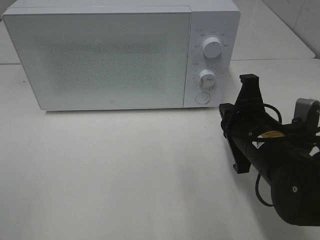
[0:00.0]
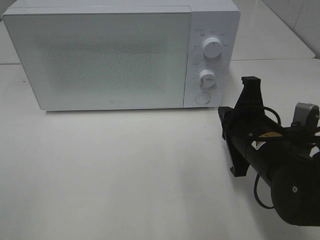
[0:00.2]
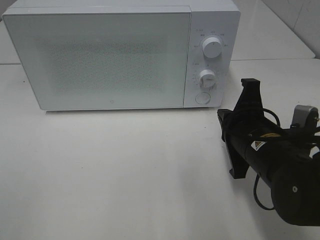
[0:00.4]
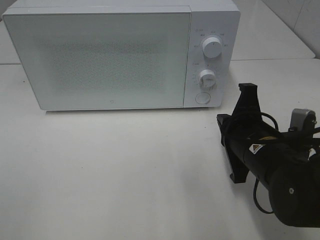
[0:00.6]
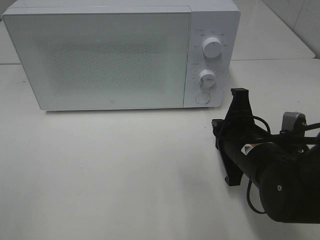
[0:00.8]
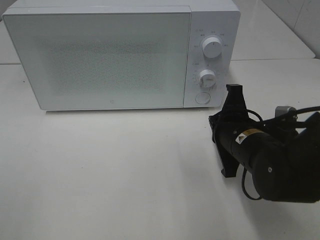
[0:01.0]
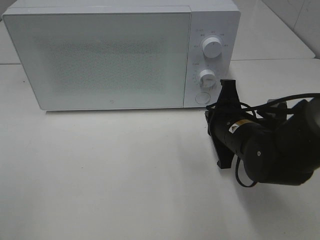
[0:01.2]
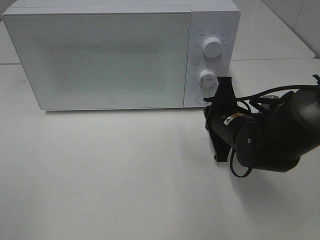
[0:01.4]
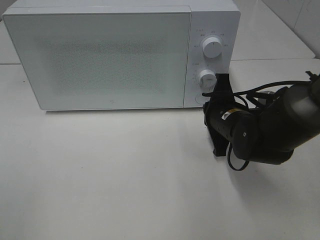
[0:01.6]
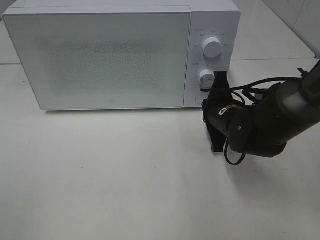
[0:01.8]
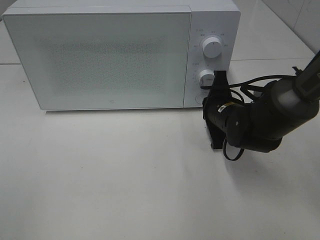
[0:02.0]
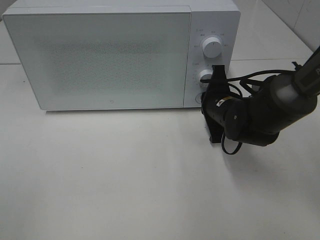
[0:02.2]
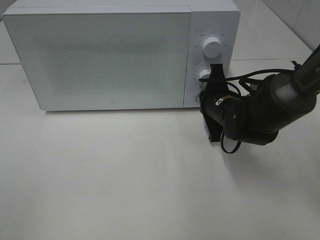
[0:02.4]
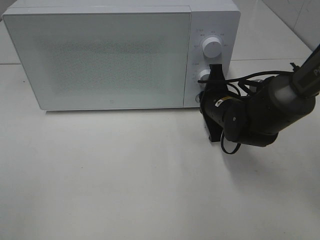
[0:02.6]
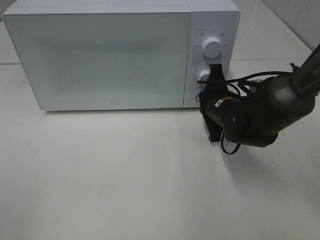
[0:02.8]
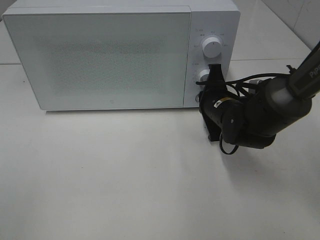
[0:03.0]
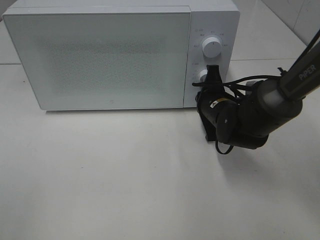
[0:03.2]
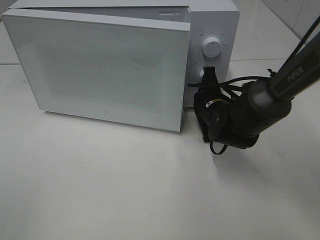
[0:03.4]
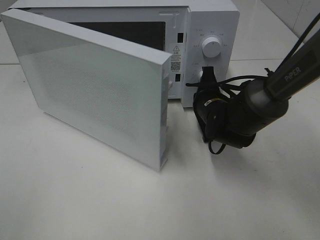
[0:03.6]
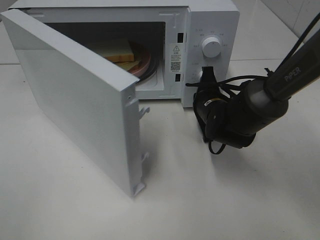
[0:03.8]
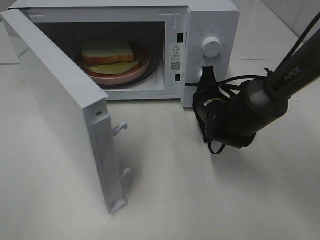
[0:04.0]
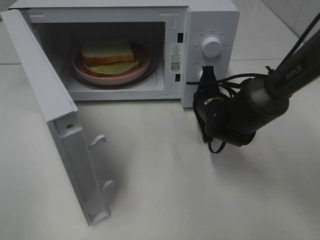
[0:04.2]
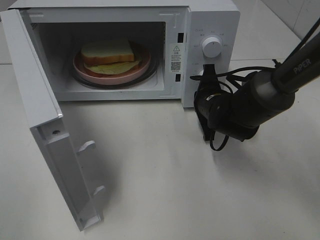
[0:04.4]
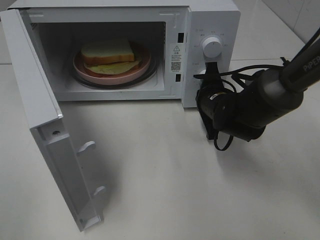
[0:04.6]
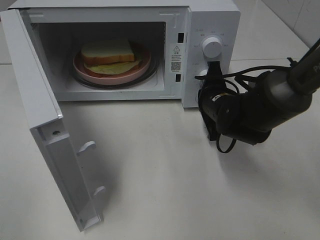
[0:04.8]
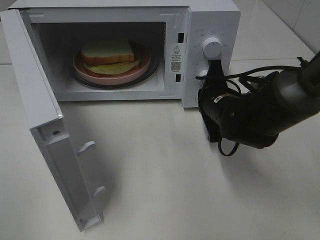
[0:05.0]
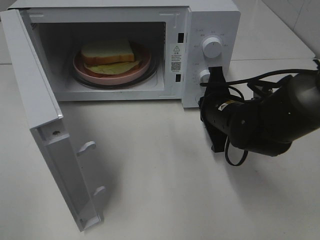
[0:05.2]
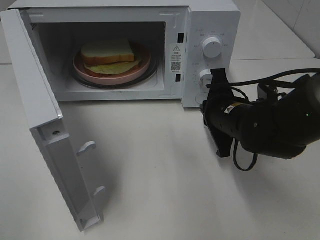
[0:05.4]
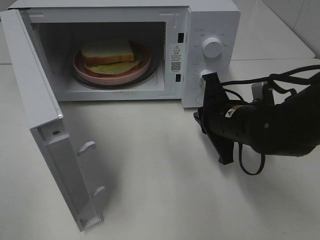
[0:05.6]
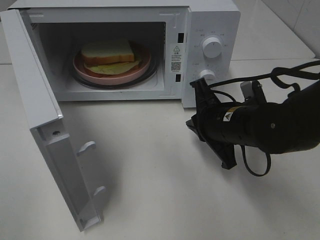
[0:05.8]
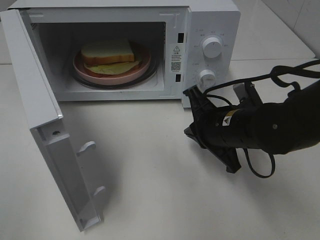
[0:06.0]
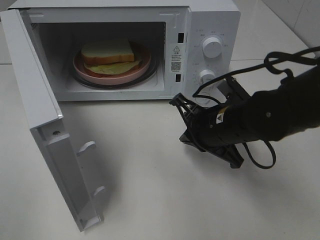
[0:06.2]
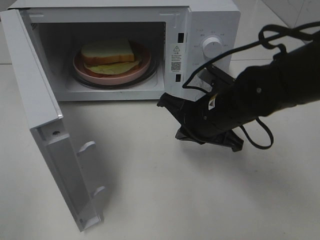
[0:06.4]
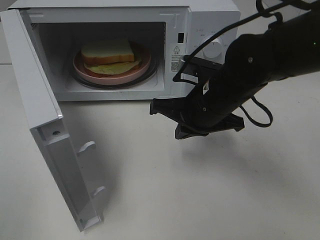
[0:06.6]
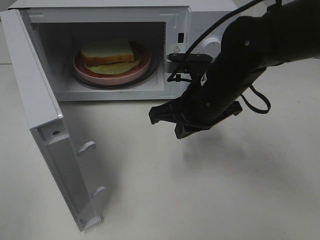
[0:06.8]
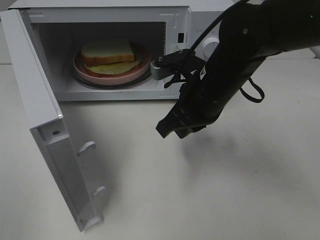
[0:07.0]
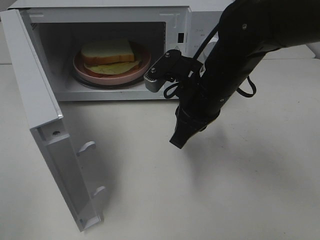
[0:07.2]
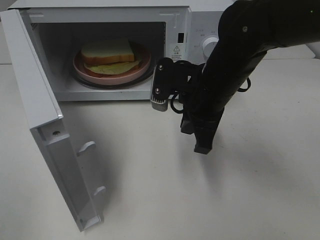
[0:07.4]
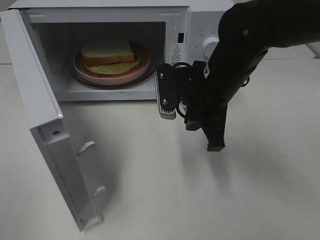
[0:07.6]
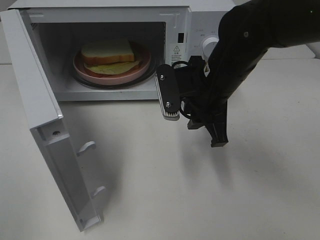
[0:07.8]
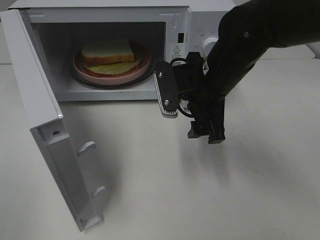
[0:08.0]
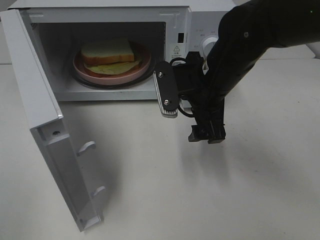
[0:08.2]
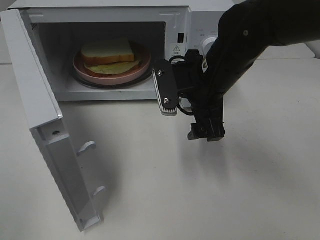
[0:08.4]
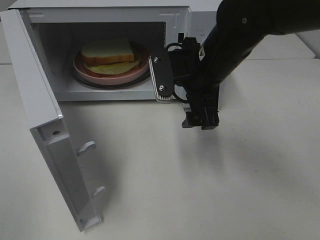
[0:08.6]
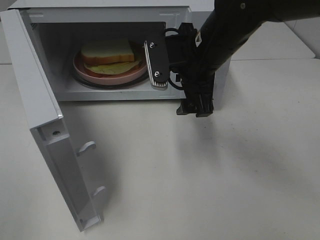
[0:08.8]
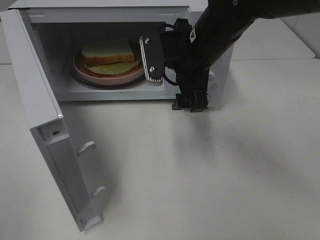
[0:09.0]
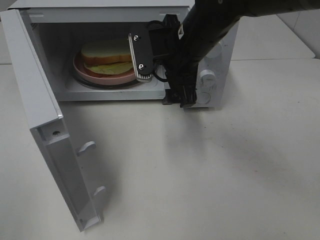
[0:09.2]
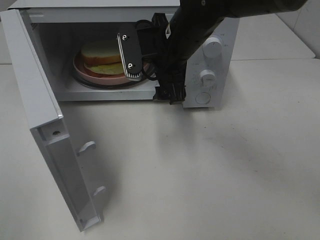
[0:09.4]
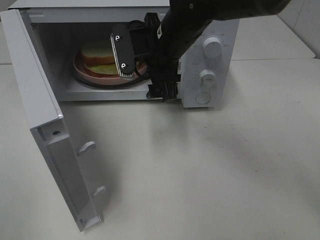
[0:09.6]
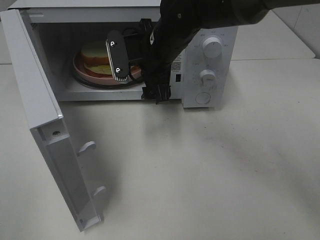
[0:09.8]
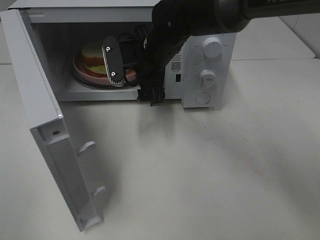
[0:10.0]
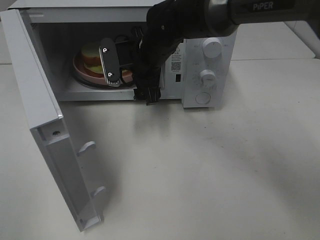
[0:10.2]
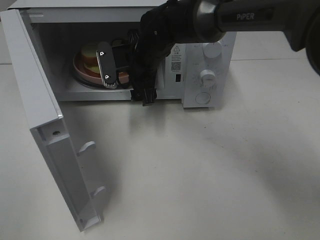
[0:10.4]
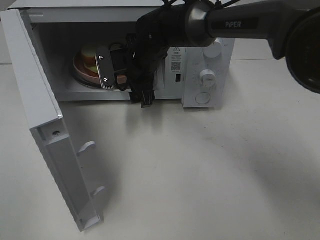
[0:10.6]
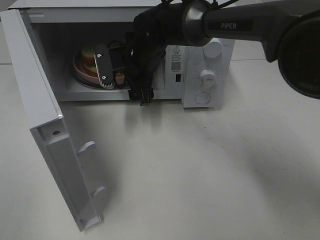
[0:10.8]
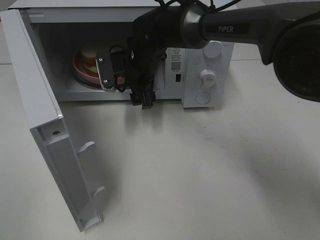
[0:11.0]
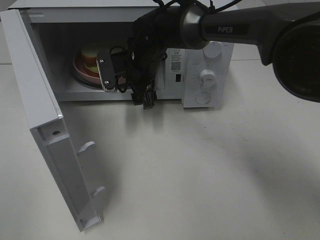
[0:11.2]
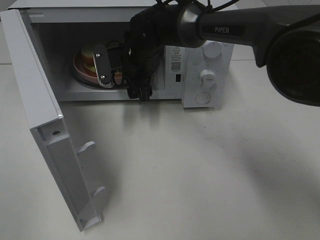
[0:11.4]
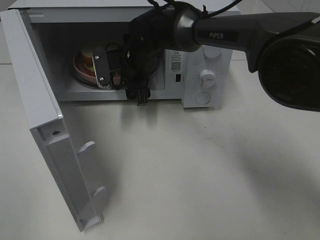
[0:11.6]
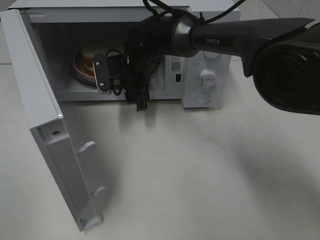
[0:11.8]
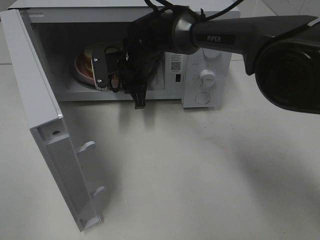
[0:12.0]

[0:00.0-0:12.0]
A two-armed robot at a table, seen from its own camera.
Task of the whole recording: Heat Sandwich.
Step, 0:00.0 to 0:04.8: Right hand: press the switch.
0:00.0 to 0:01.6: The right gripper goes roughly 10 cm forward.
0:01.6 to 0:03.0: The grippers stay close to where they were, moving slightly.
0:04.4 to 0:06.0: The right gripper goes roughly 10 cm backward.
0:06.0 to 0:07.6: The right gripper heads upward, covering roughly 5 cm.
0:07.6 to 0:09.0: The right gripper moves about 5 cm, and opens up.
0:09.0 to 0:10.4: The right gripper travels to the left, forward and downward by roughly 15 cm.
0:10.4 to 0:12.0: The right gripper closes its fingers.

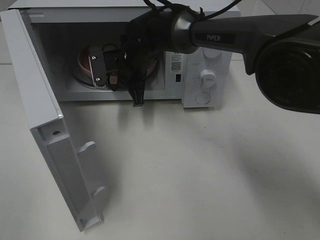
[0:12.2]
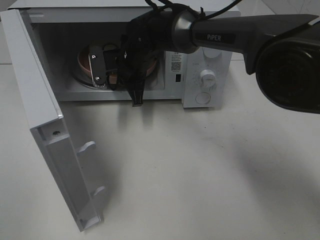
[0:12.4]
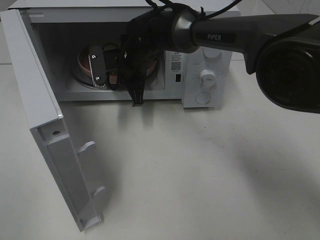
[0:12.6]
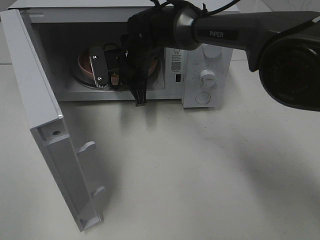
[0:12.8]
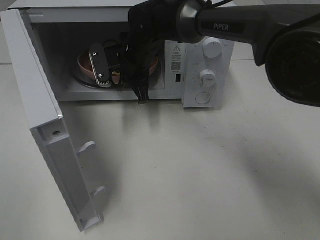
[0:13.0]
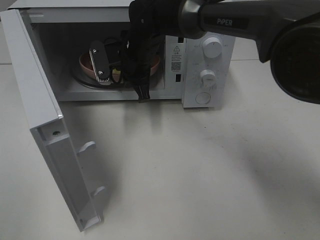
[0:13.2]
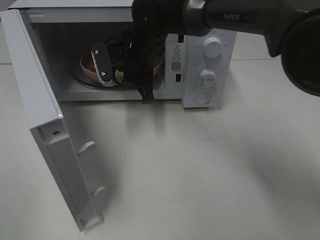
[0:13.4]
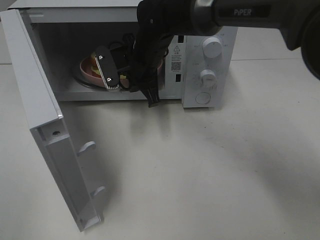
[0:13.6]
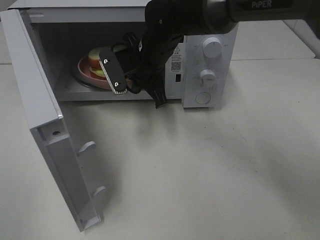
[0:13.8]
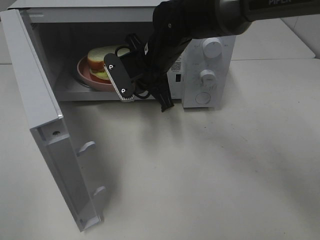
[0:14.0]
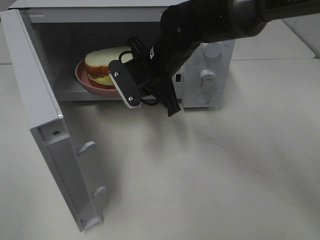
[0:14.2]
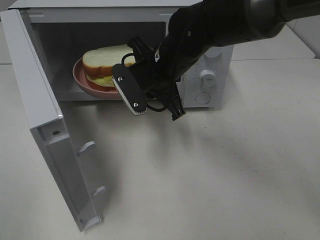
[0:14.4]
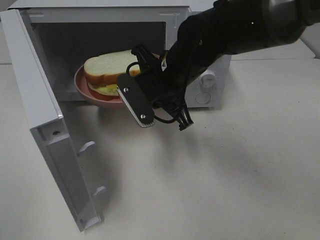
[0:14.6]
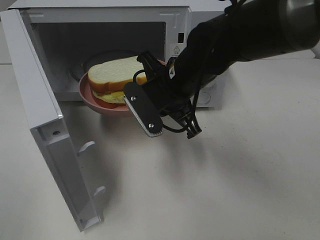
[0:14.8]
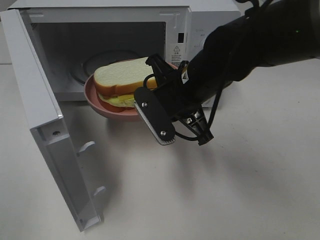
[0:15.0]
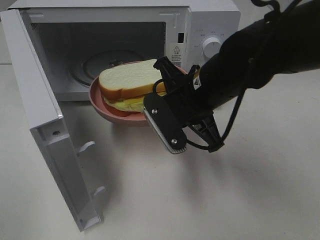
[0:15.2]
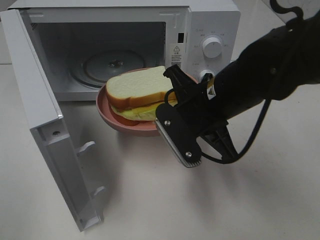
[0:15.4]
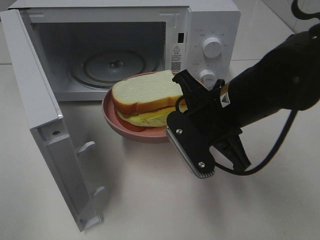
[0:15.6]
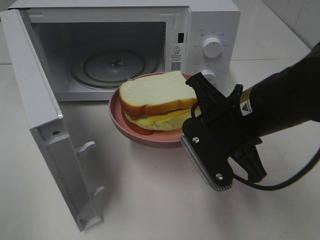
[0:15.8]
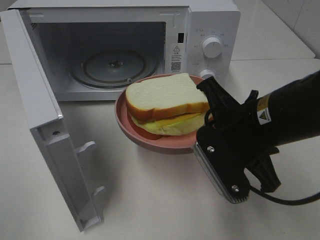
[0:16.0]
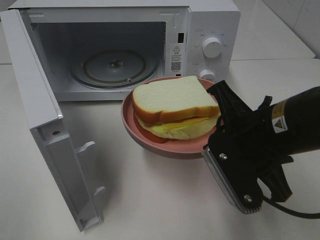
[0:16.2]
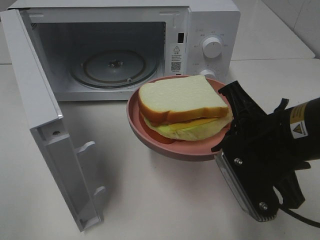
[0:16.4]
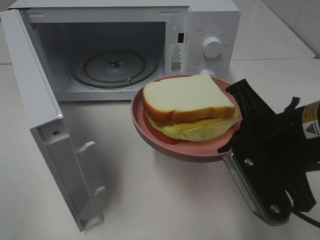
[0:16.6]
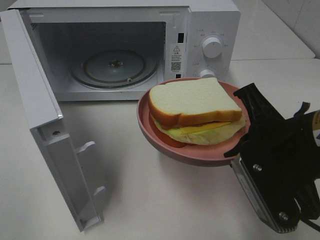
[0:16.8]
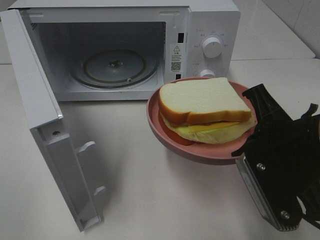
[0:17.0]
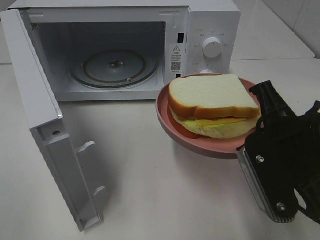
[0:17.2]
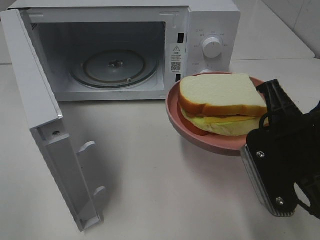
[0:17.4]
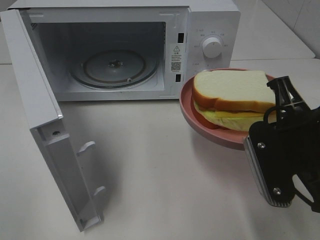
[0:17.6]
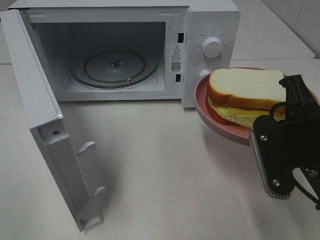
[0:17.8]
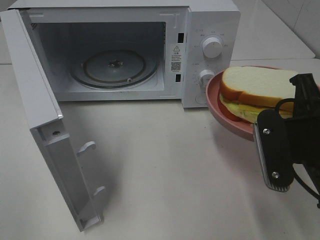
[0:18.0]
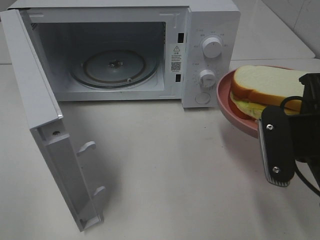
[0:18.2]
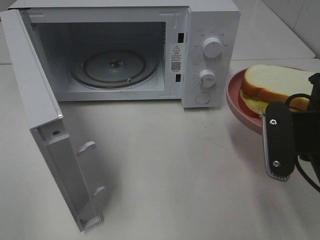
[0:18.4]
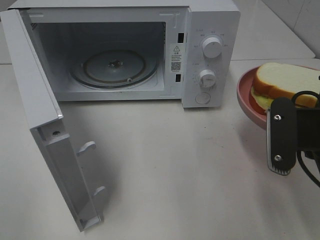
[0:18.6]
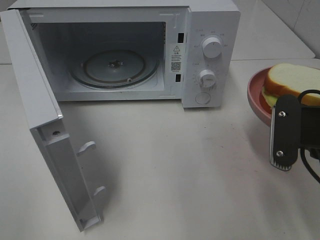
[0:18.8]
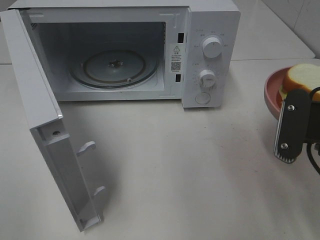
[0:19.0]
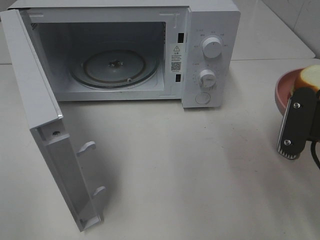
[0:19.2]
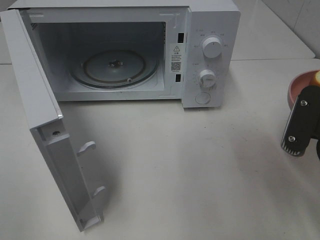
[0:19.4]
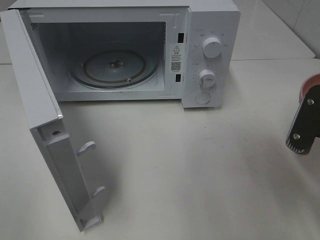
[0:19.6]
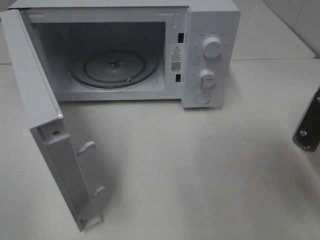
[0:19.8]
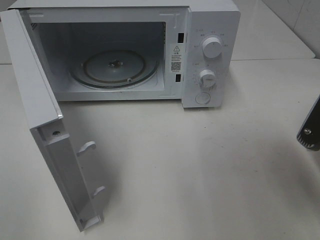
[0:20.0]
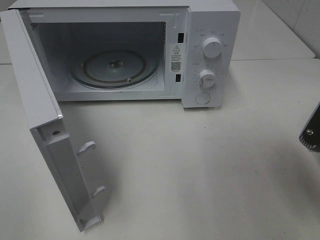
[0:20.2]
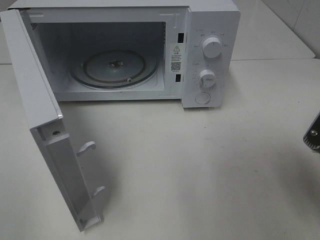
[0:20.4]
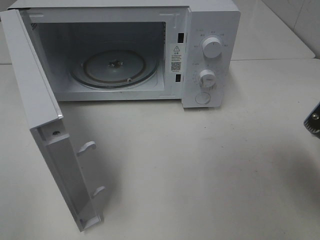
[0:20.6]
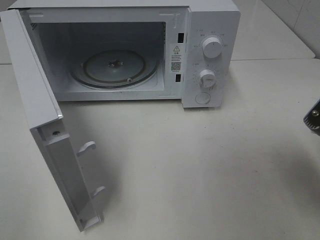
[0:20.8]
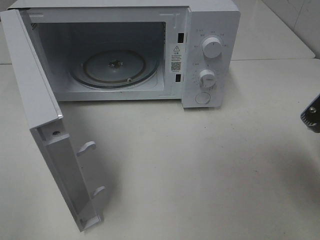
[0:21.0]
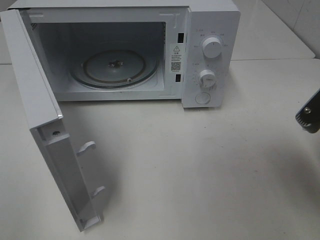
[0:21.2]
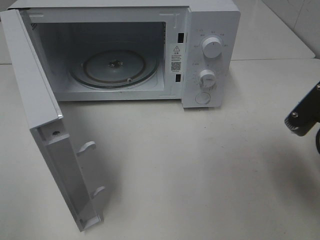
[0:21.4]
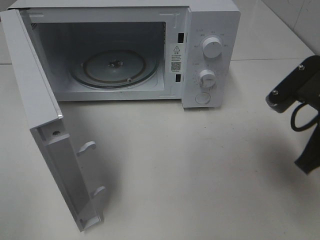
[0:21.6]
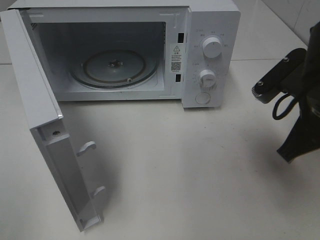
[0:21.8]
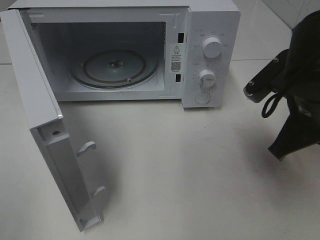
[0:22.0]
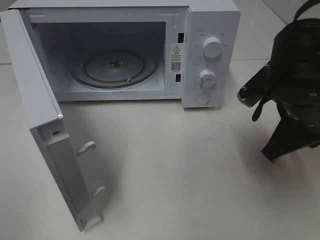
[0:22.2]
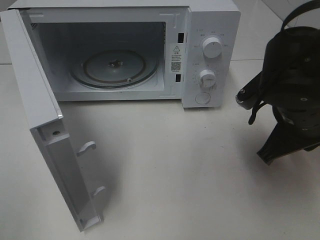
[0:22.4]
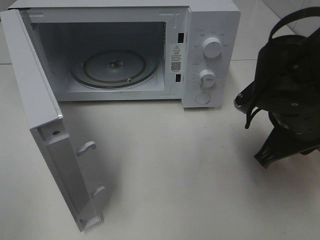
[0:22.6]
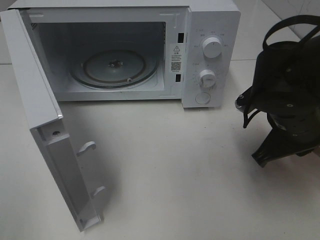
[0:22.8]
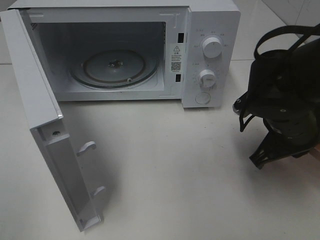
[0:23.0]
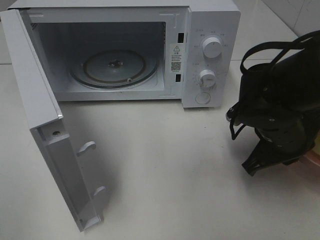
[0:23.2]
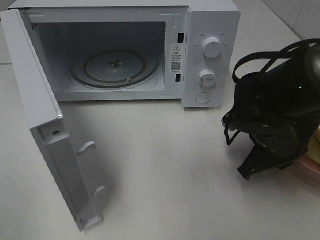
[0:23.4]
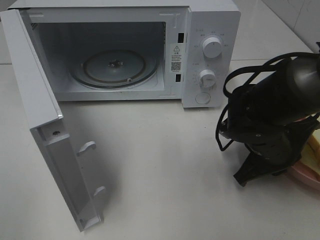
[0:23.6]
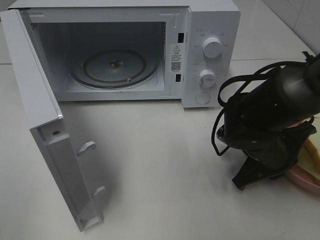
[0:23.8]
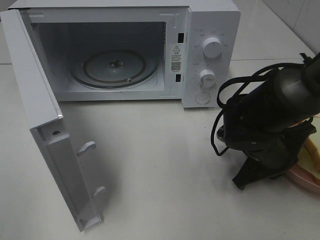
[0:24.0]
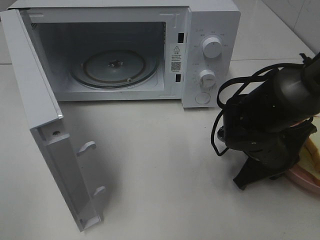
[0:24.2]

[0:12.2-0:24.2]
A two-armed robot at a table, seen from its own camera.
Task of the whole recording: Heat Sandwich.
0:12.2 to 0:13.8: The right gripper moves approximately 5 cm.
0:13.8 to 0:15.2: The right gripper moves backward and to the right, about 15 cm.
0:15.2 to 0:16.6: The right gripper heads backward and to the right, covering roughly 15 cm.
0:19.8 to 0:21.2: There are only small adjustments of the grippers.
0:21.2 to 0:22.6: The right gripper travels forward and to the left by approximately 10 cm.
0:22.6 to 0:24.2: The right gripper travels downward by approximately 10 cm.
